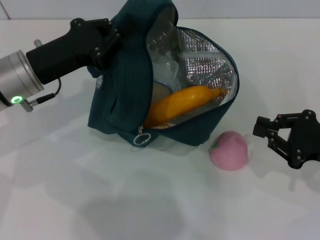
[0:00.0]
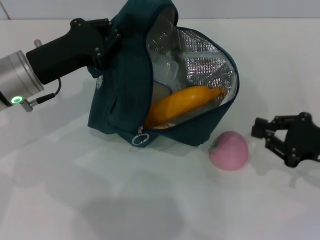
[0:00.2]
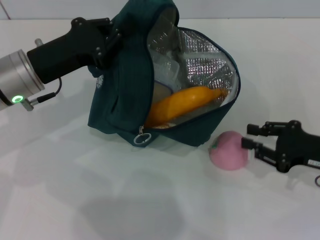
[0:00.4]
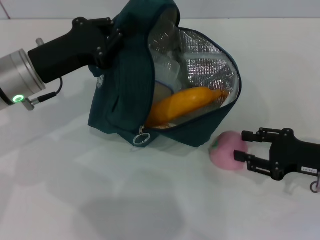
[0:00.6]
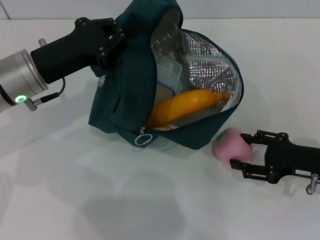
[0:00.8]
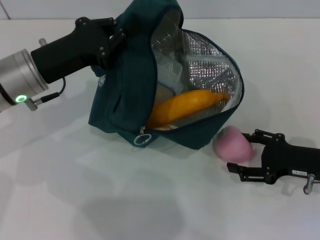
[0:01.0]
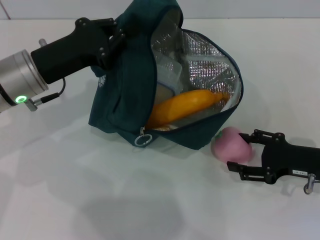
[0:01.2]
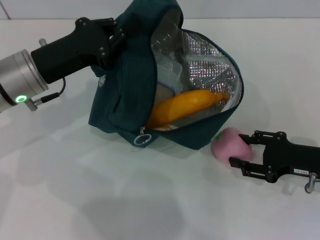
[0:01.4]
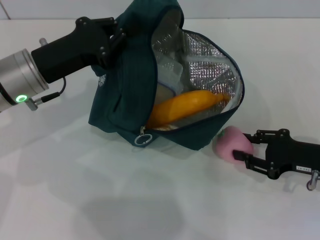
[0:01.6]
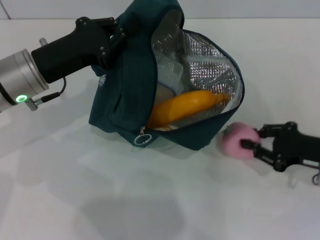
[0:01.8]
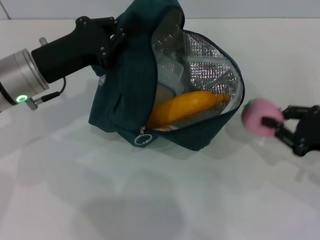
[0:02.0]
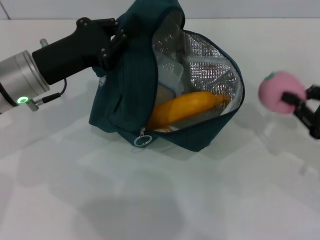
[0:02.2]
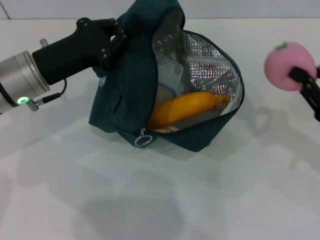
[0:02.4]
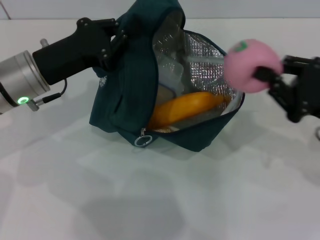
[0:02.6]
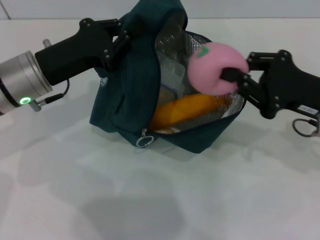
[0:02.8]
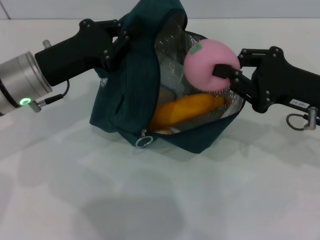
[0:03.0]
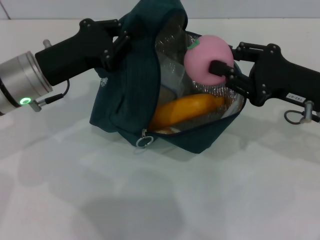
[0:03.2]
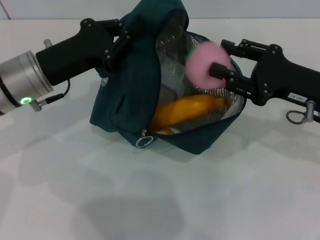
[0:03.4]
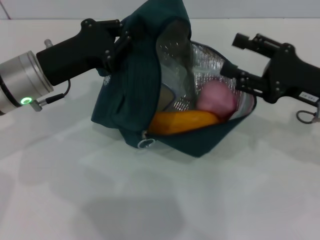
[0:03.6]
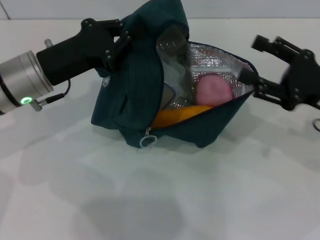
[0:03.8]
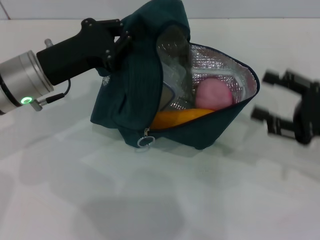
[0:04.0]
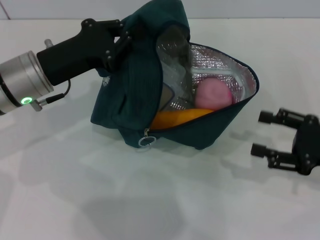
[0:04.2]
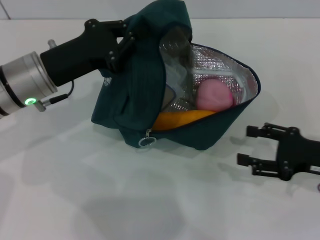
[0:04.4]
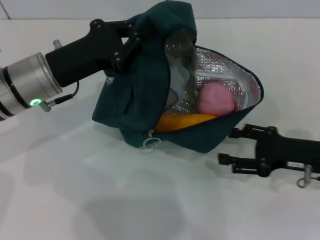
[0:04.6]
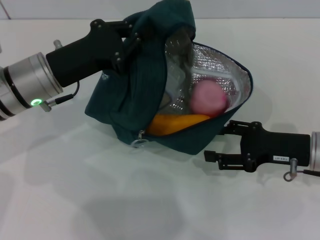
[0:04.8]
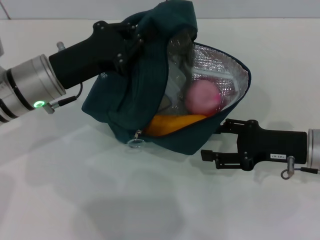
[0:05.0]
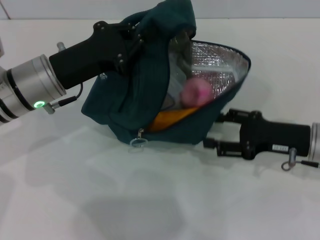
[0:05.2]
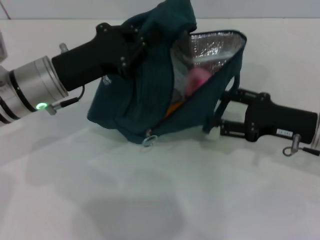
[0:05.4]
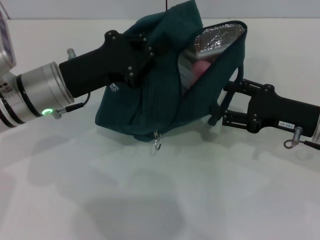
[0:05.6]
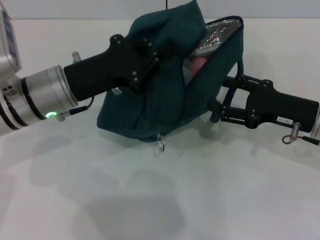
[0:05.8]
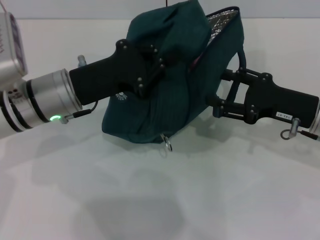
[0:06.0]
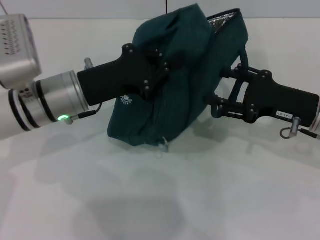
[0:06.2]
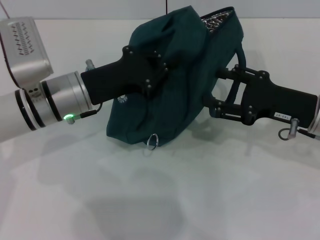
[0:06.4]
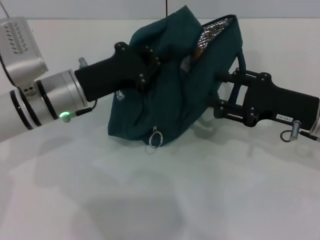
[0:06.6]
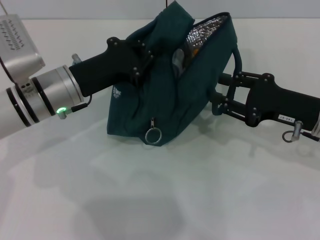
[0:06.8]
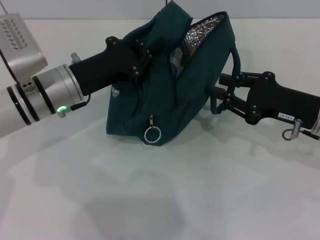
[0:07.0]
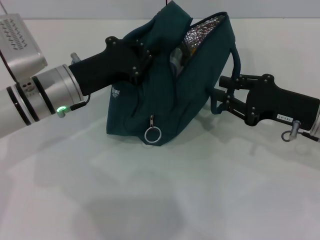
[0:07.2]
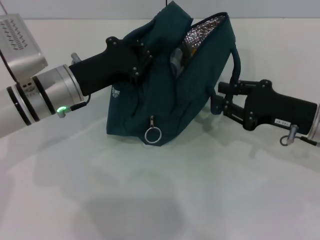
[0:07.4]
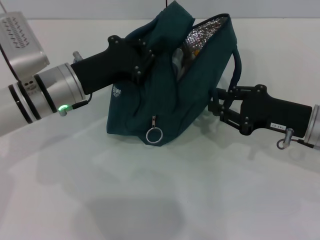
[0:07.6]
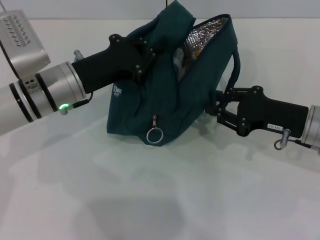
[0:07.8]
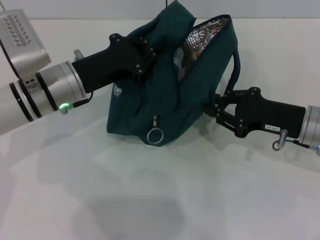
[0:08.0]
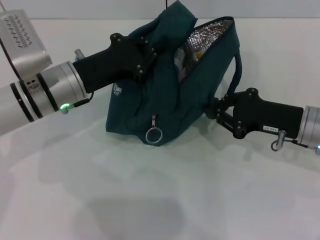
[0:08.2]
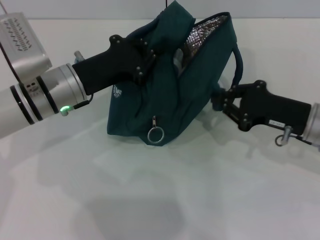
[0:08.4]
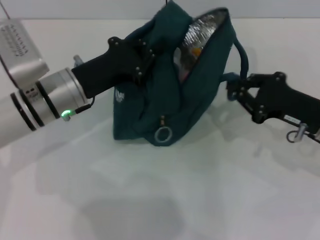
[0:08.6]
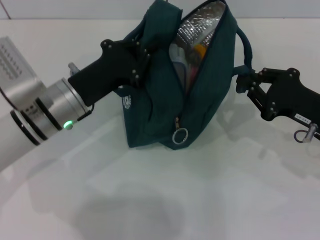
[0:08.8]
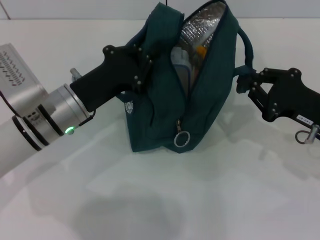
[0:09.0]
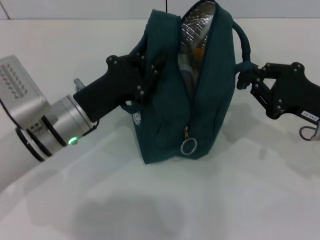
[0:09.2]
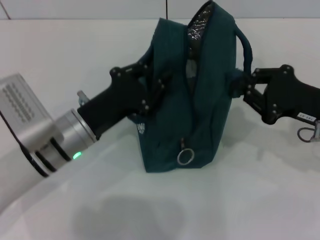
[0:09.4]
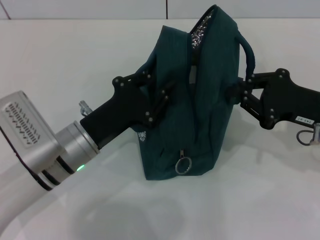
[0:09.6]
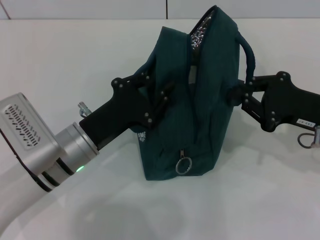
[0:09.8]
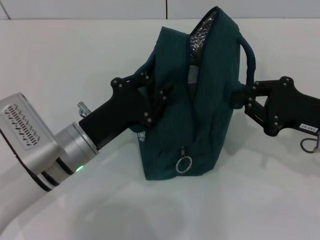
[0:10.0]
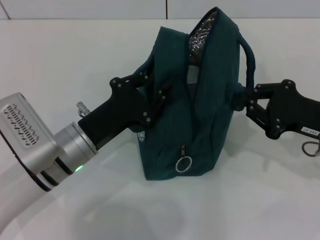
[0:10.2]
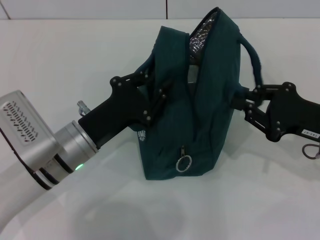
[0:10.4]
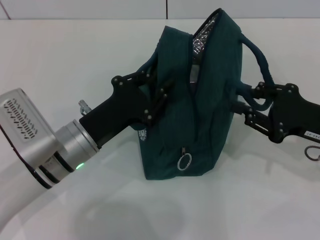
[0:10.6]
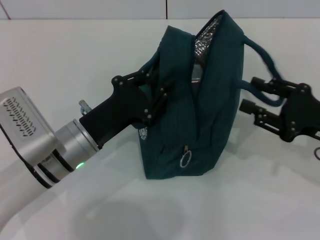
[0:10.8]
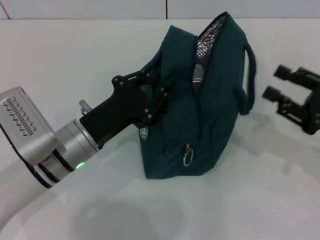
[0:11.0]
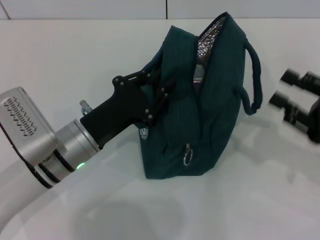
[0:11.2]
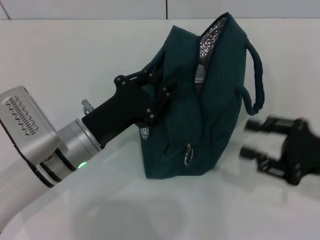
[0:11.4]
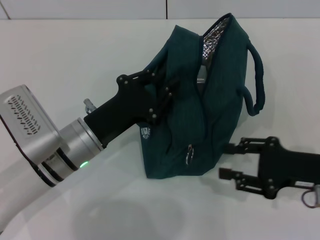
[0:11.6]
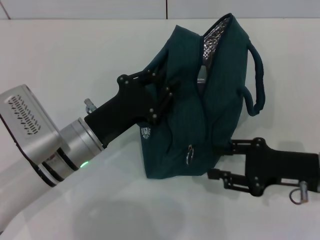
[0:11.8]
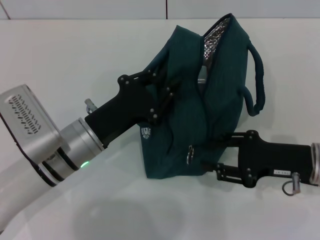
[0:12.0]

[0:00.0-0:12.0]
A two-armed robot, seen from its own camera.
Step, 0:04.0 to 0:10.8: Hold the lunch bag with your right hand.
0:00.0 to 0:01.6: The right gripper opens its fingers.
0:01.6 to 0:03.0: The right gripper travels upward by about 10 cm, and closes.
0:03.0 to 0:04.4: The right gripper moves downward and to the right, roughly 10 cm, and opens up.
0:04.4 to 0:06.0: The right gripper heads forward, covering about 5 cm.
0:06.0 to 0:07.6: The right gripper closes.
0:09.0 to 0:10.4: The left gripper changes place by about 5 cm.
0:10.4 to 0:12.0: The right gripper opens up.

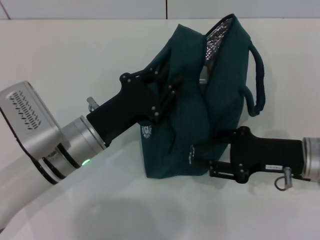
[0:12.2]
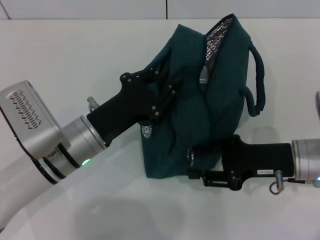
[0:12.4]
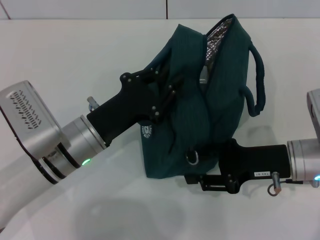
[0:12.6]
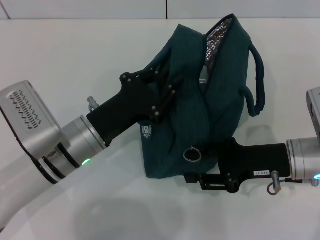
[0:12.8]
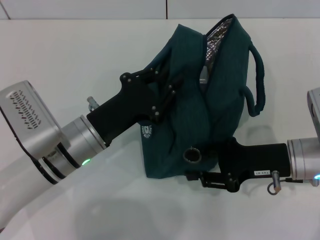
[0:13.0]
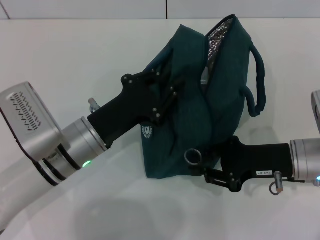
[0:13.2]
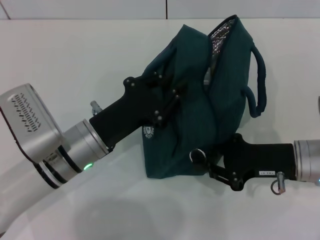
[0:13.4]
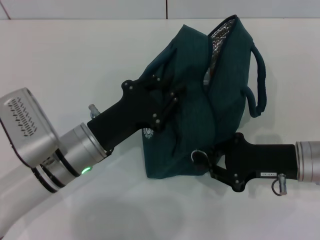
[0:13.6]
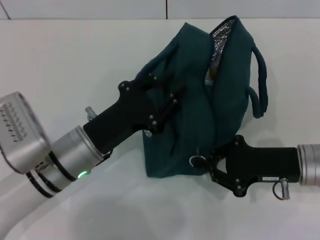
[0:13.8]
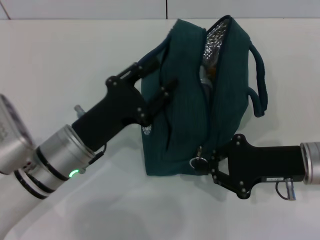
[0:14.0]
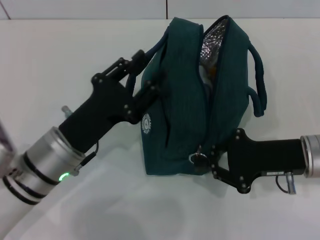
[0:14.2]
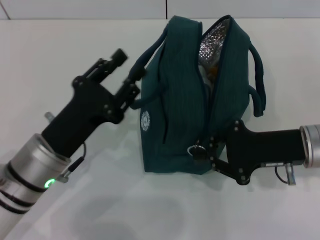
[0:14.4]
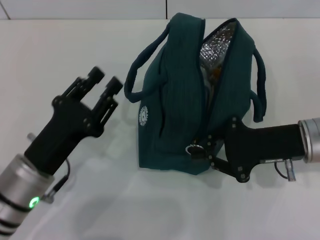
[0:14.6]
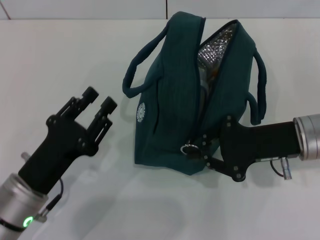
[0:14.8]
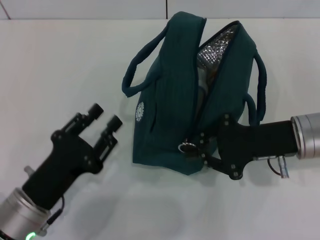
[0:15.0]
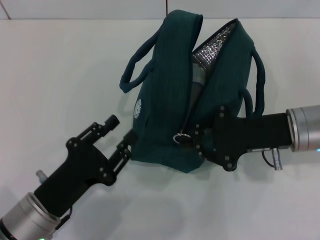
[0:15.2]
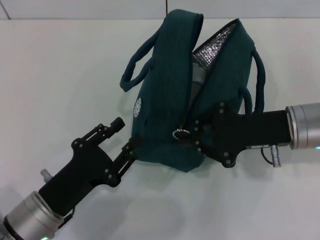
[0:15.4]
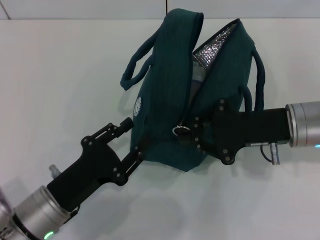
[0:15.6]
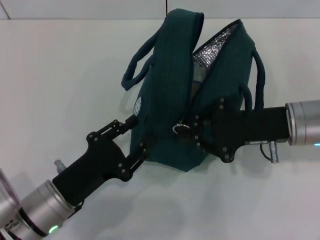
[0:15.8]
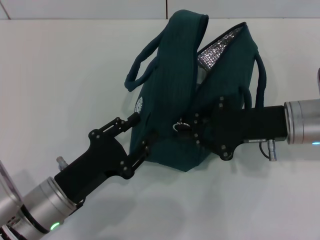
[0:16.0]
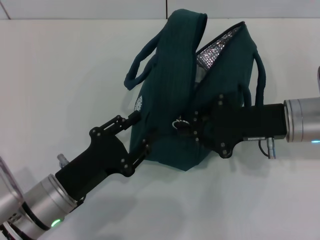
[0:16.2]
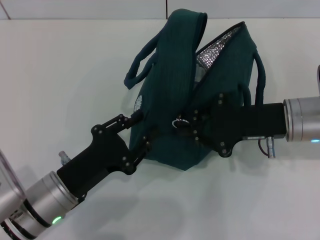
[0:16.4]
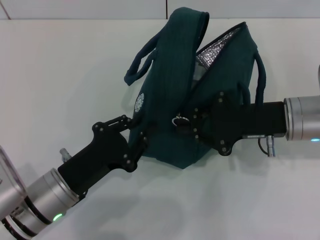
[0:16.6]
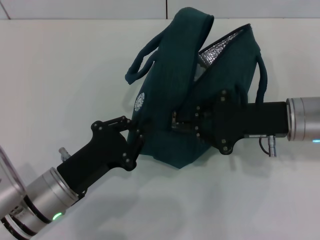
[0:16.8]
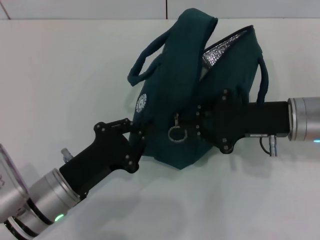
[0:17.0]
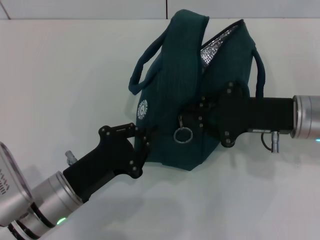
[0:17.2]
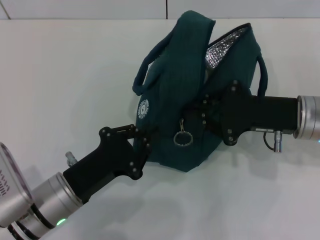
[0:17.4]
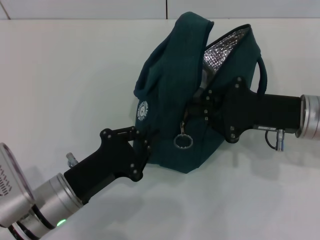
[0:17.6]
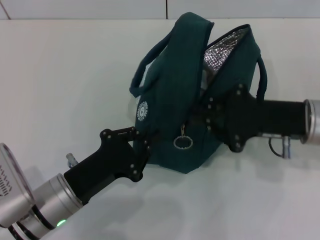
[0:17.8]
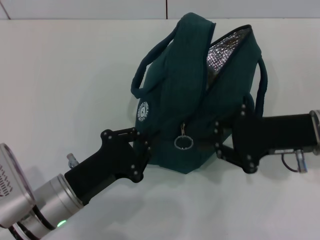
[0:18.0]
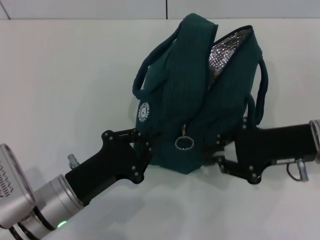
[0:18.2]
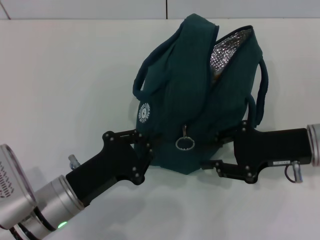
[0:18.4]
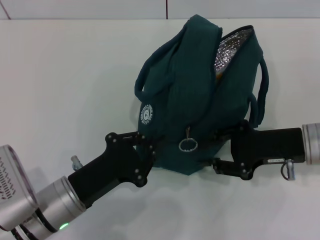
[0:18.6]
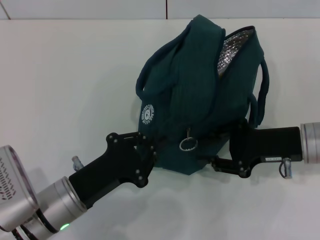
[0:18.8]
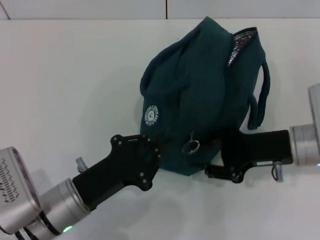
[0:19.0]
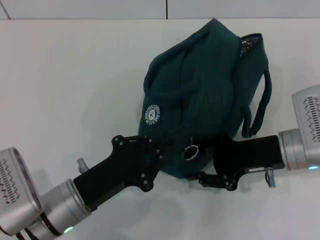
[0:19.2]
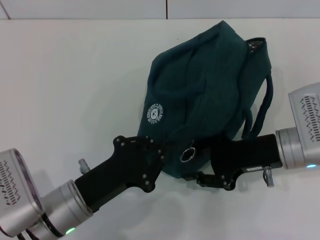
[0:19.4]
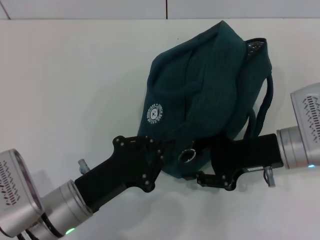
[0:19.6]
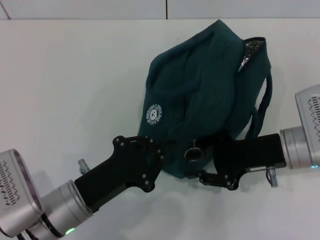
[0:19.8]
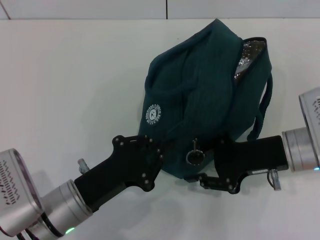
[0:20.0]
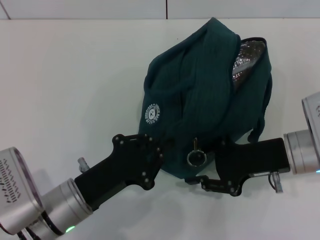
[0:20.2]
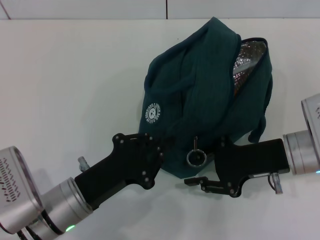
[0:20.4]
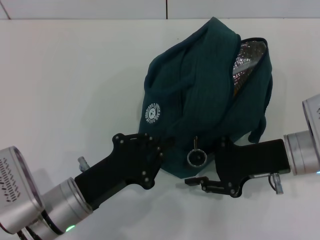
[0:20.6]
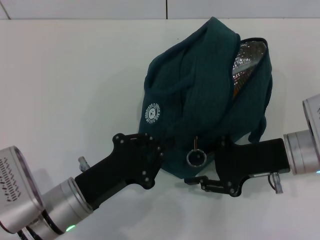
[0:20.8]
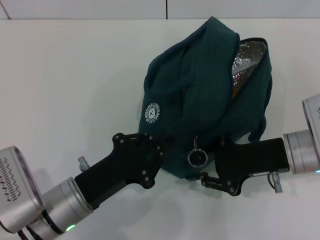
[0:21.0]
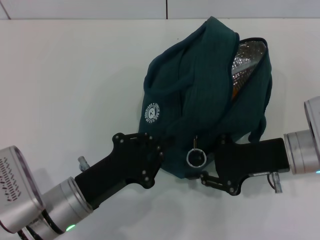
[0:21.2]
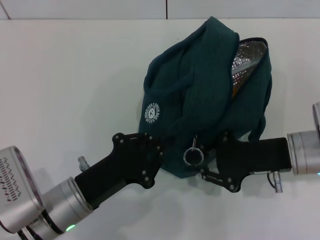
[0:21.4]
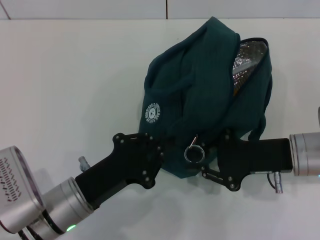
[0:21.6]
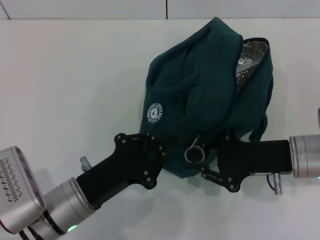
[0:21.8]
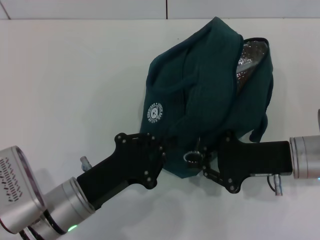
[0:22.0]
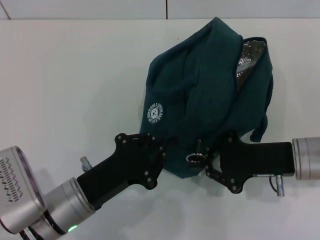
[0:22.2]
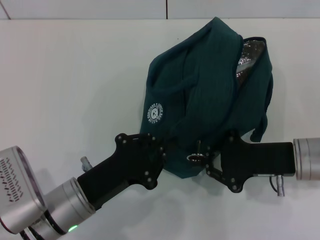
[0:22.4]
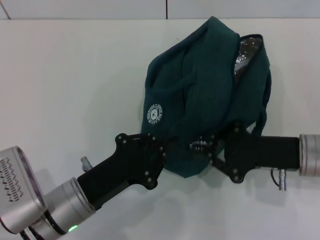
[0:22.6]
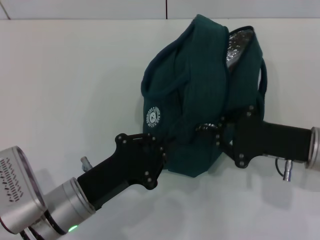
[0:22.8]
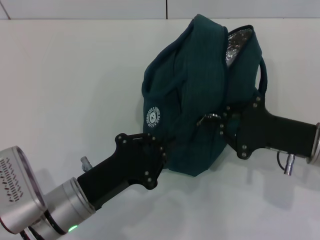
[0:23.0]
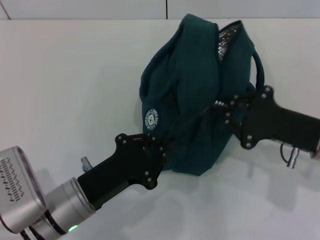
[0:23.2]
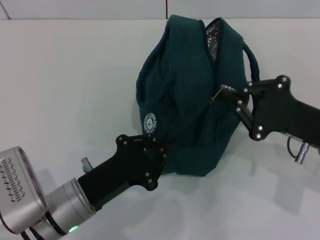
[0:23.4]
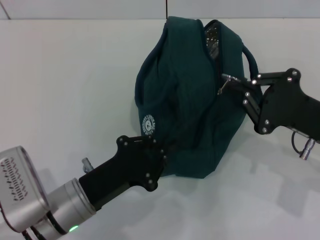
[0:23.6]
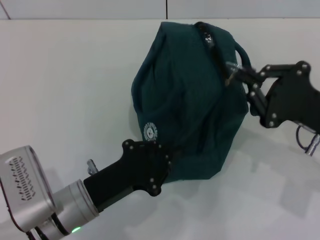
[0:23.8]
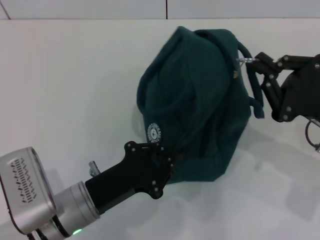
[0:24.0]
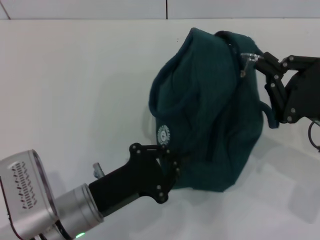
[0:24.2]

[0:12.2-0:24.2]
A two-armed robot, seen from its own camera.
Step, 0:12.2 to 0:14.0: Hold the lunch bag with your left hand.
0:12.2 to 0:13.8: The right gripper closes its fingers.
0:13.8 to 0:15.2: The right gripper is displaced upward by about 5 cm; the left gripper moves backward and to the left, some 10 cm.
0:15.2 to 0:16.6: The grippers make only small movements.
0:16.6 to 0:18.2: The left gripper closes its fingers.
0:19.8 to 0:22.6: The grippers make only small movements.
